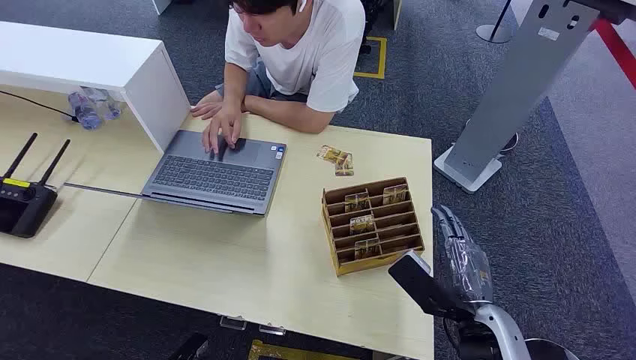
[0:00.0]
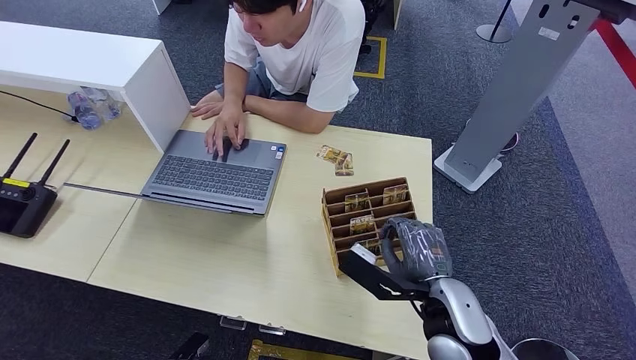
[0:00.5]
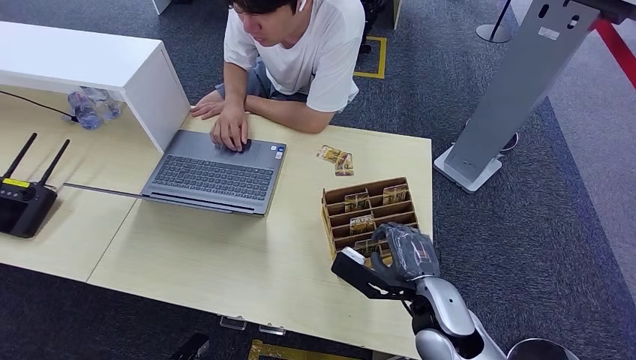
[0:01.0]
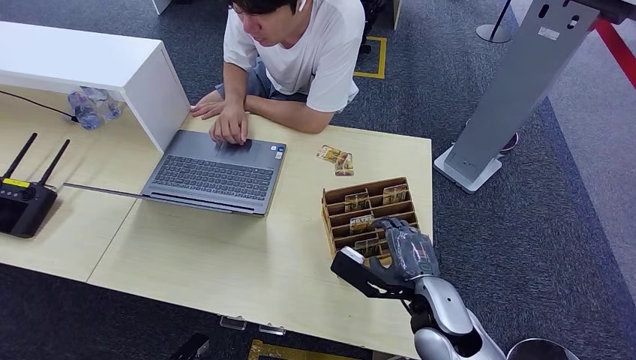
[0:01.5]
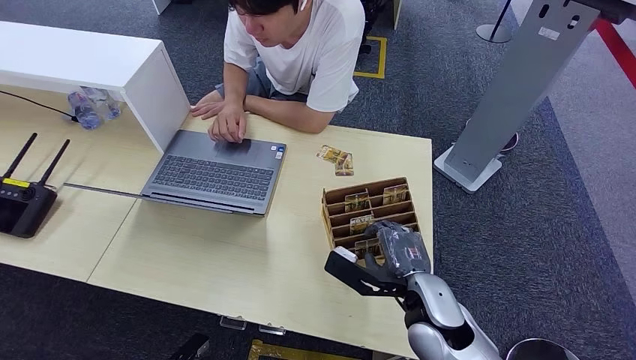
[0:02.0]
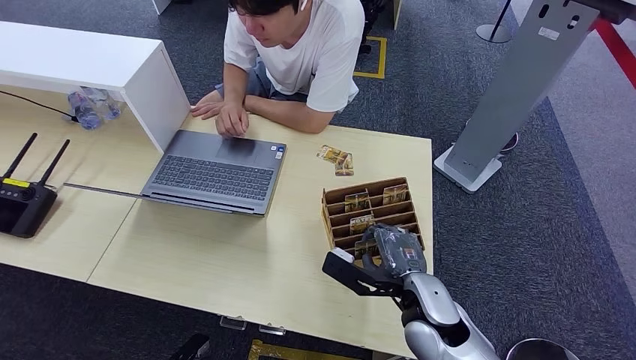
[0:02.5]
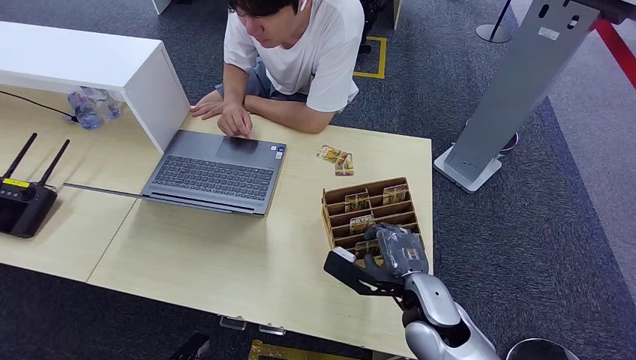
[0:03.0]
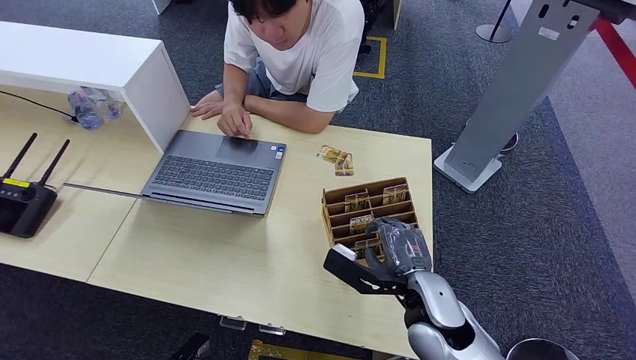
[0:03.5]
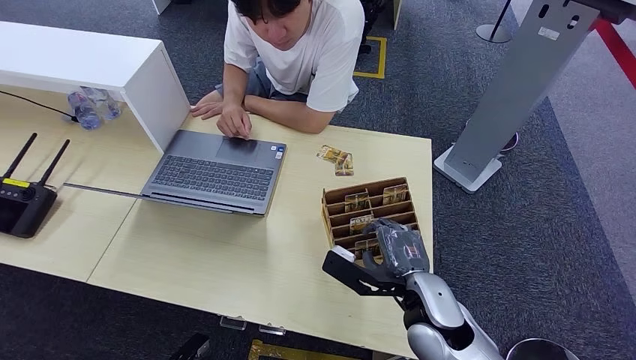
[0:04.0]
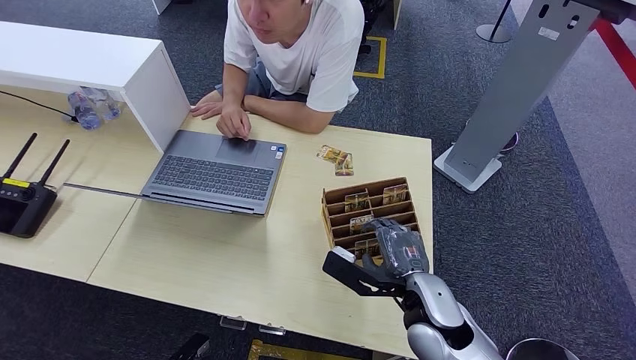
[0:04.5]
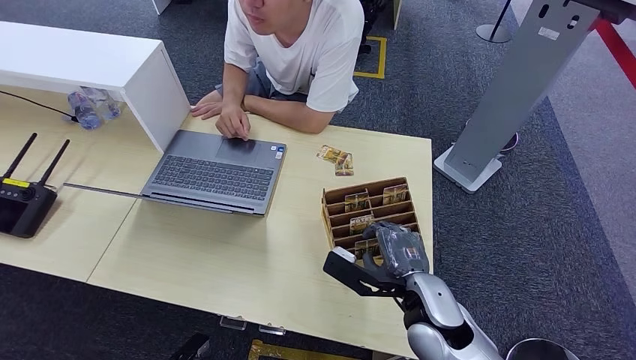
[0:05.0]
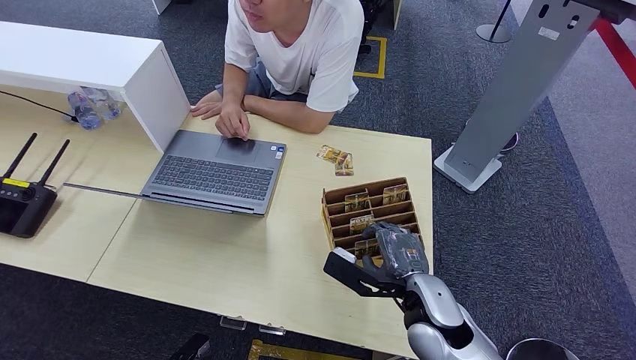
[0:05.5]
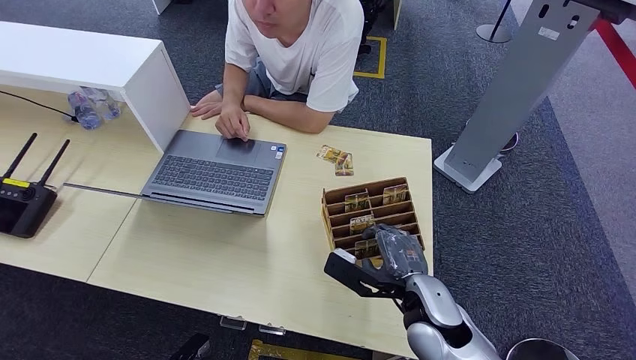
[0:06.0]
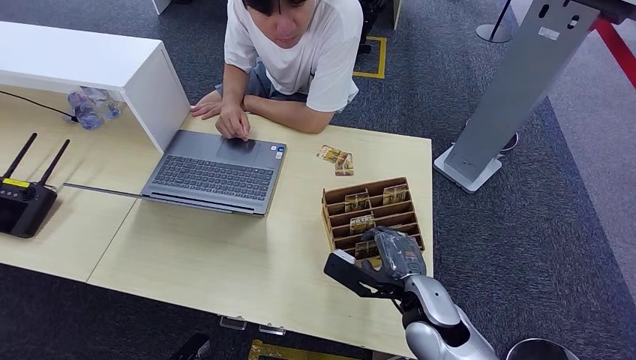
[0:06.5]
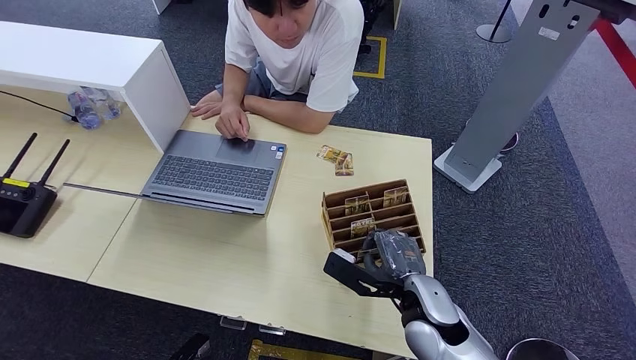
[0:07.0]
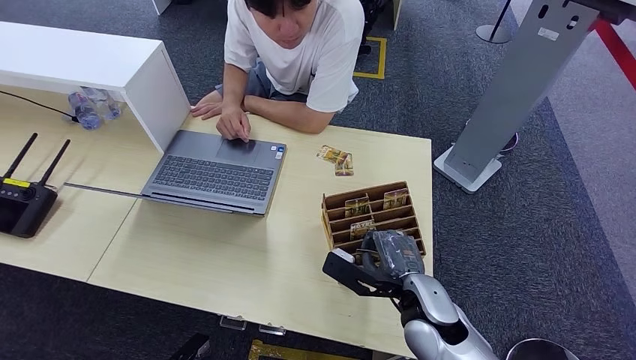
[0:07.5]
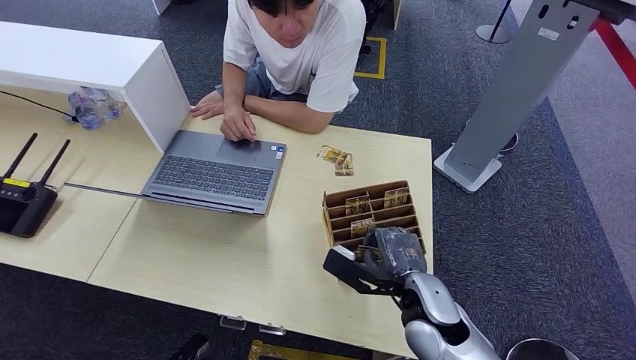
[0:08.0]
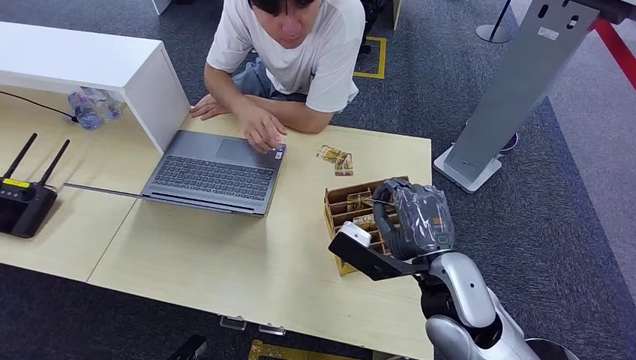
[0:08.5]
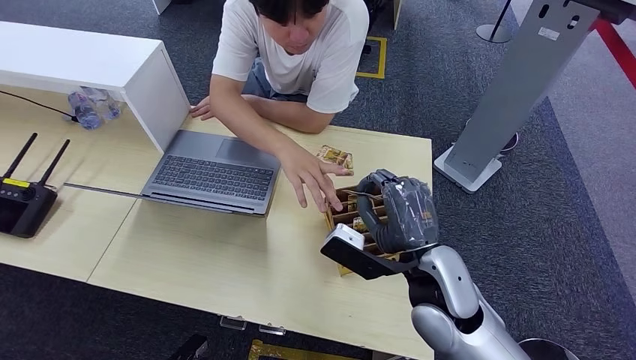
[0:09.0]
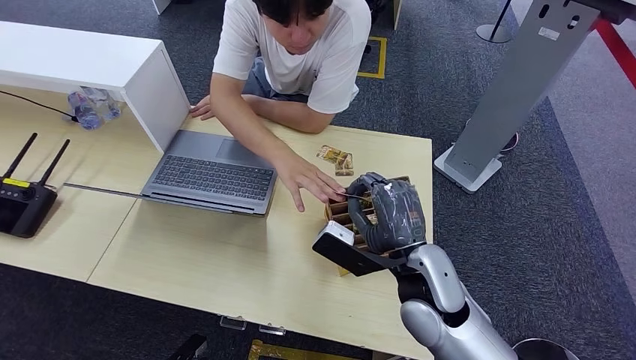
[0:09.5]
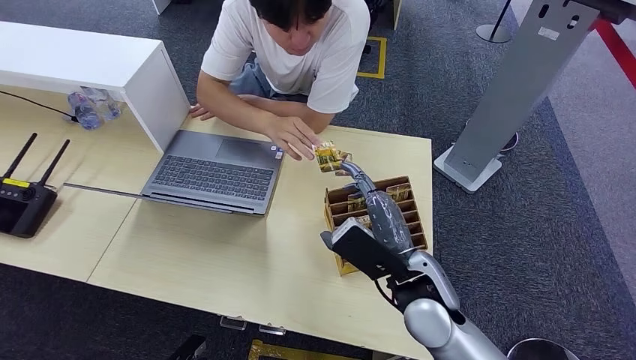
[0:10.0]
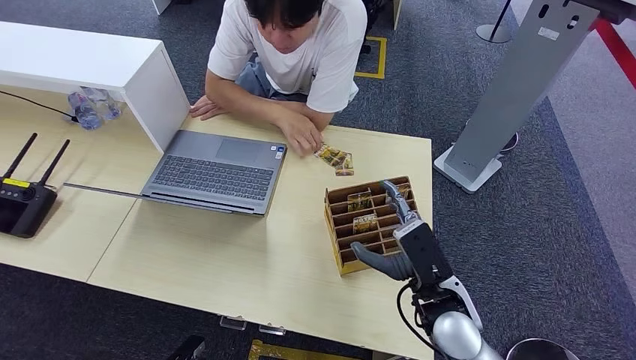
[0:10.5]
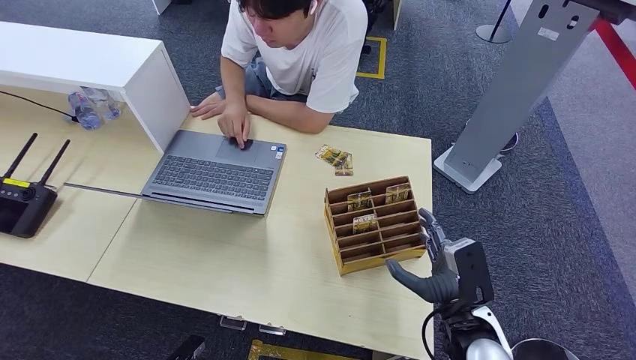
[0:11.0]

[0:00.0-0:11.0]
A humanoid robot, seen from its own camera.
Step, 0:00.0 to 0:08.5: Pick up the room card from the card holder.
Step, 0:09.0 to 0:11.0: Hand the room card to the target.
0:02.0 to 0:05.5: Neither hand changes place.
0:05.5 to 0:07.5: Neither hand changes place.
0:07.5 to 0:09.0: The right hand is displaced upward by about 10 cm.
0:09.0 to 0:11.0: The right hand goes approximately 15 cm downward and to the right.

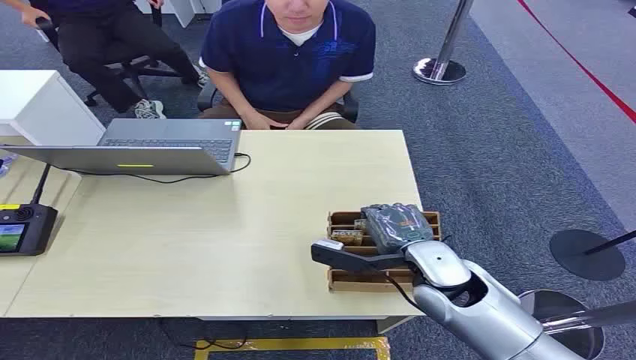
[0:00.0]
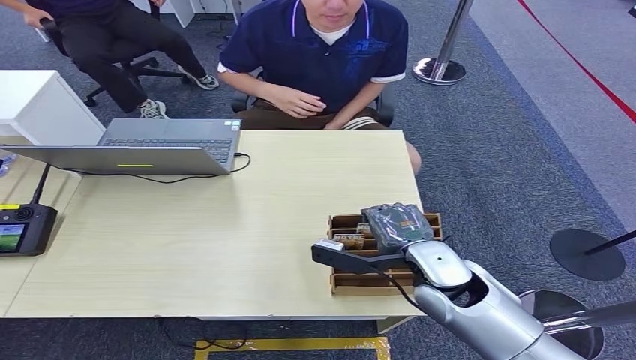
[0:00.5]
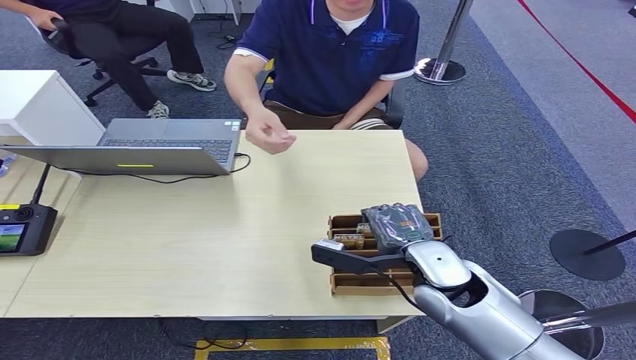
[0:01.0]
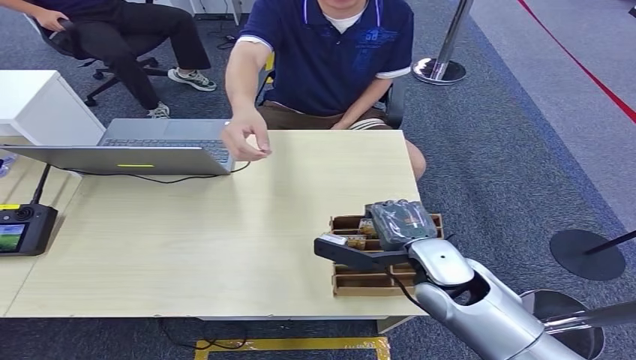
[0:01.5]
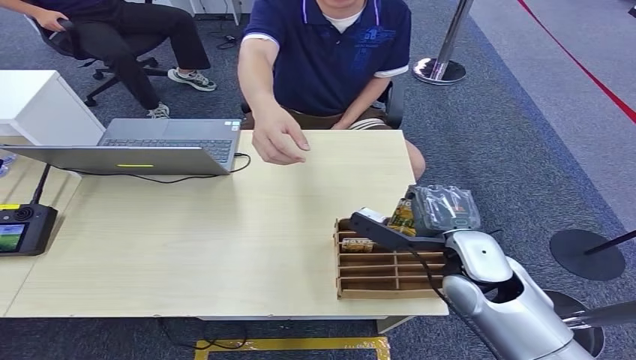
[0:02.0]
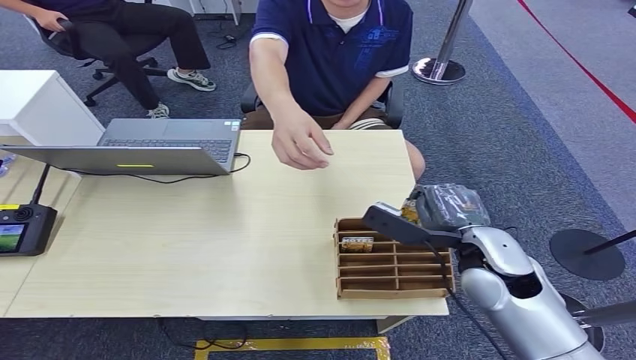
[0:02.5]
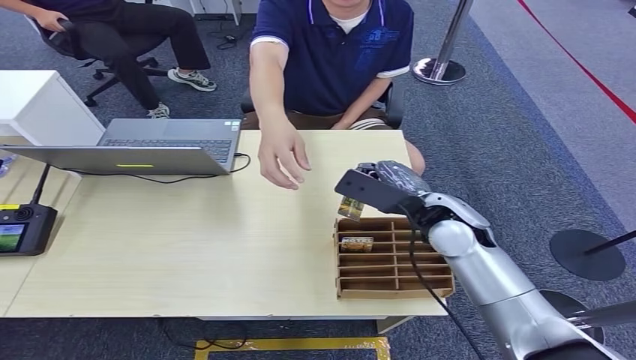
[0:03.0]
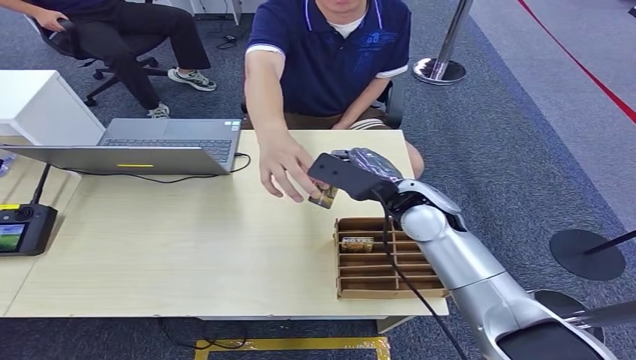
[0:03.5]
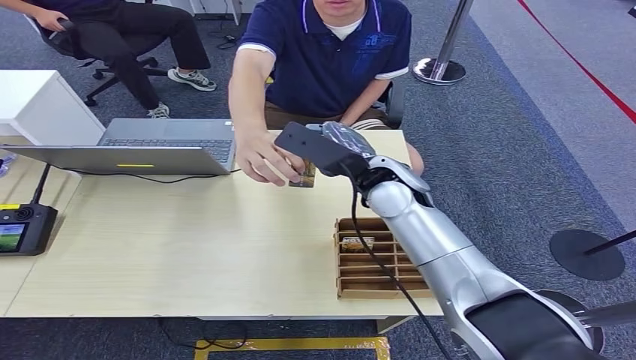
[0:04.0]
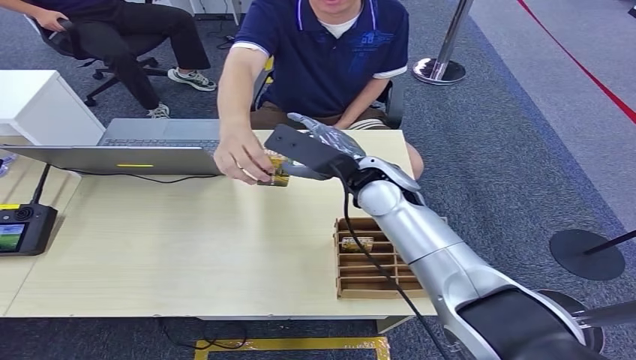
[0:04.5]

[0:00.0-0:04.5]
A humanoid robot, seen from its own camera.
Step, 0:00.0 to 0:02.5: Pick up the room card from the card holder.
Step, 0:03.0 to 0:04.5: Hand the room card to the target.
0:02.0 to 0:04.5: The right hand travels forward, to the left and upward by about 20 cm.
